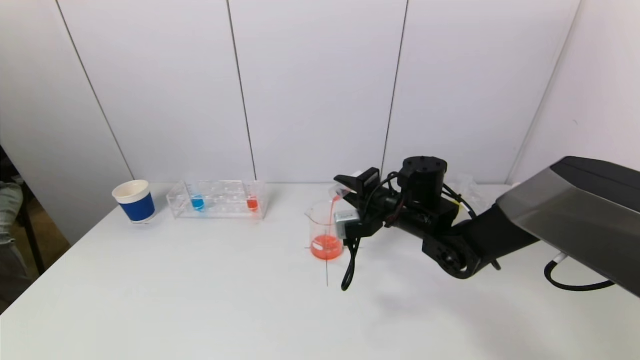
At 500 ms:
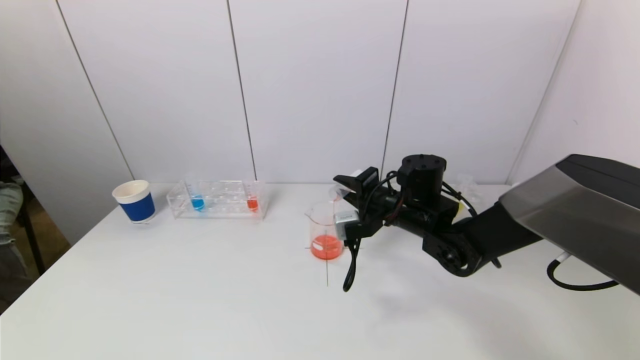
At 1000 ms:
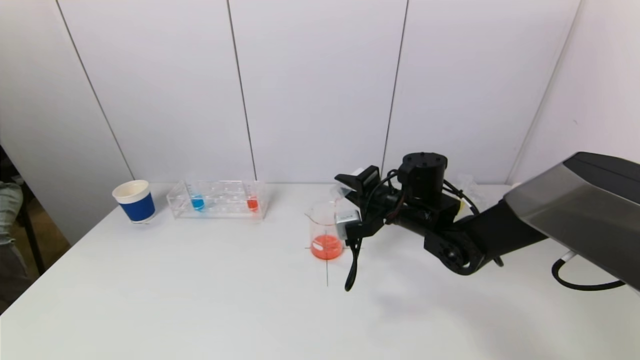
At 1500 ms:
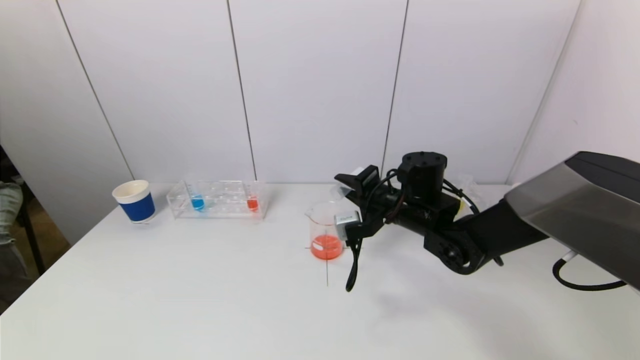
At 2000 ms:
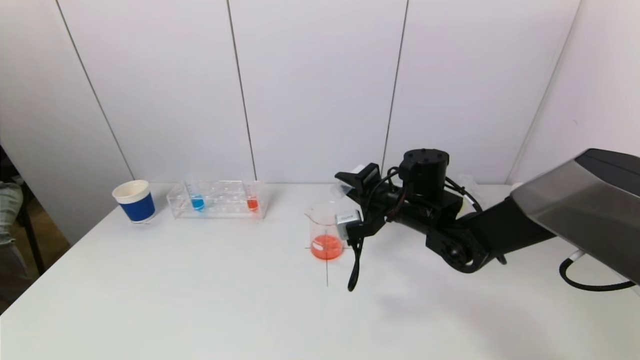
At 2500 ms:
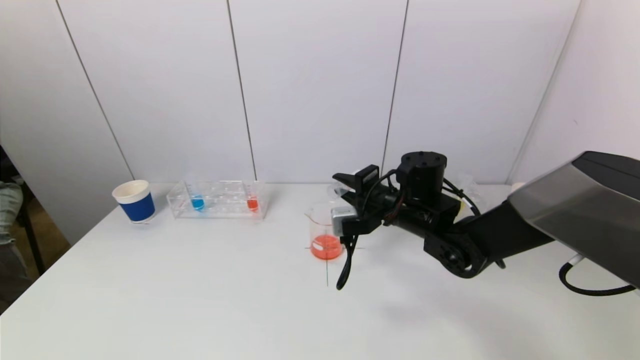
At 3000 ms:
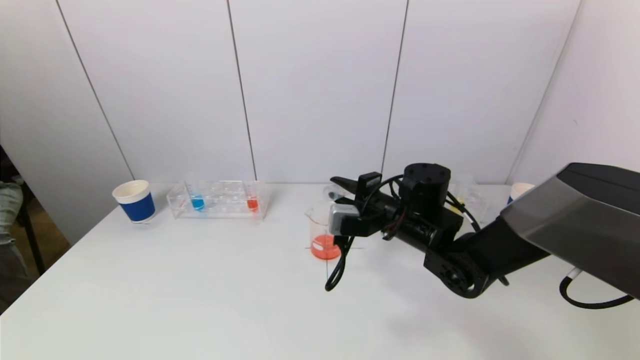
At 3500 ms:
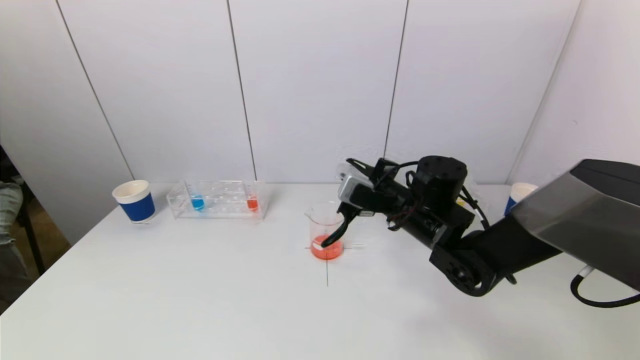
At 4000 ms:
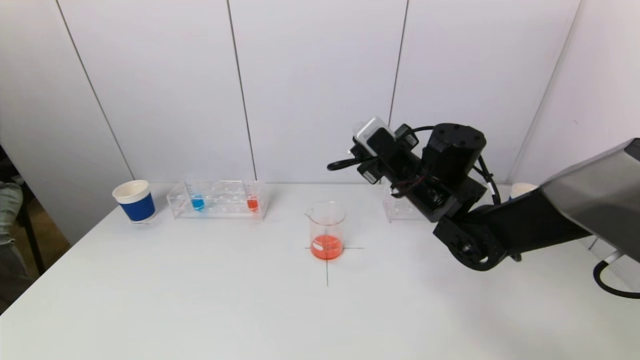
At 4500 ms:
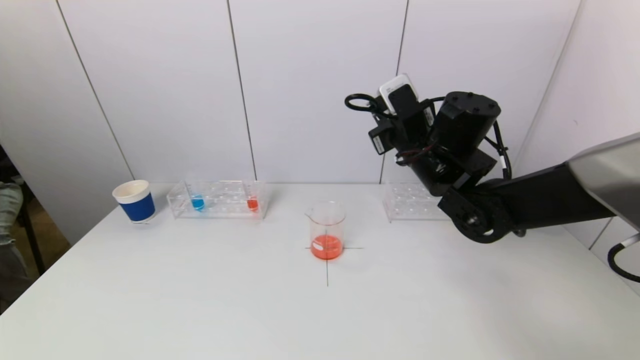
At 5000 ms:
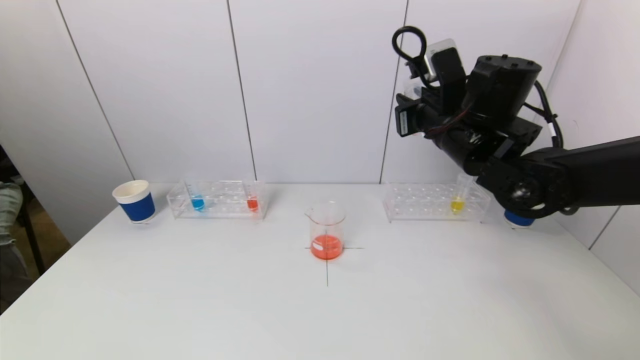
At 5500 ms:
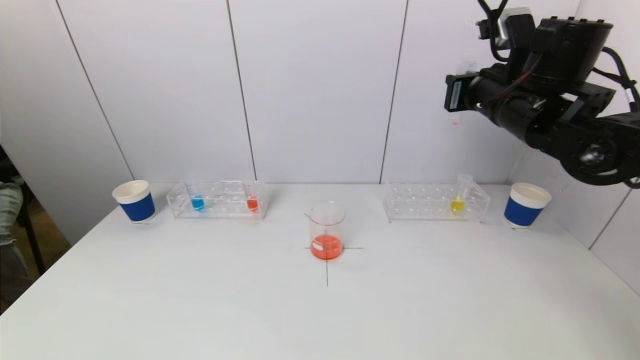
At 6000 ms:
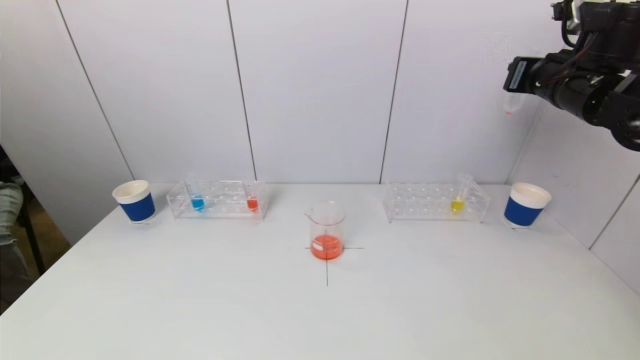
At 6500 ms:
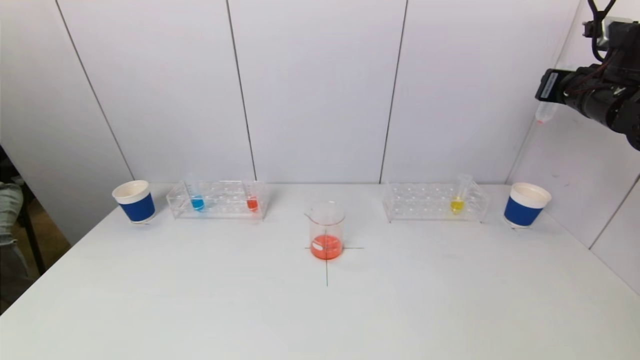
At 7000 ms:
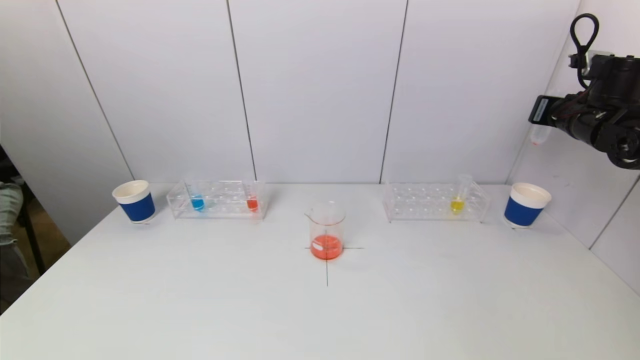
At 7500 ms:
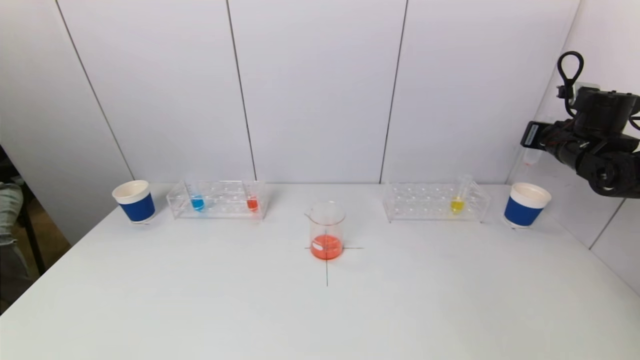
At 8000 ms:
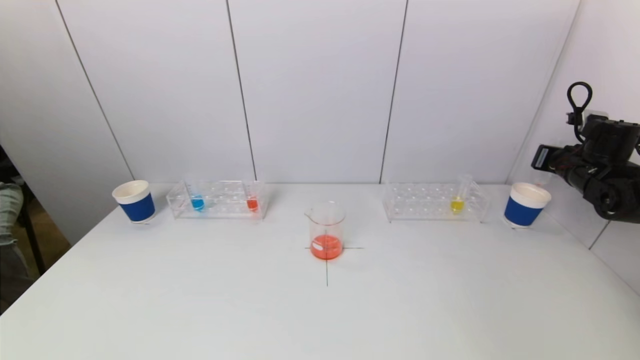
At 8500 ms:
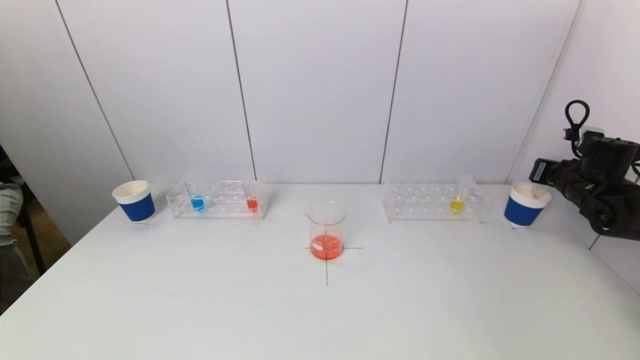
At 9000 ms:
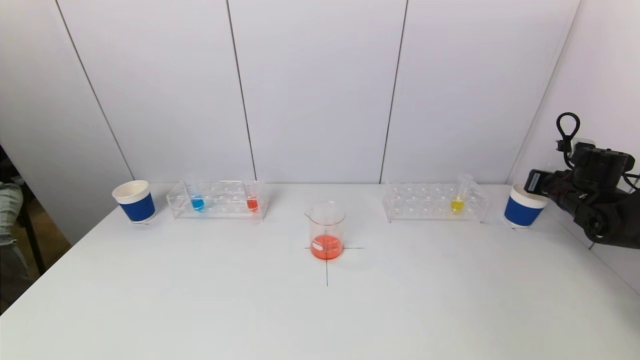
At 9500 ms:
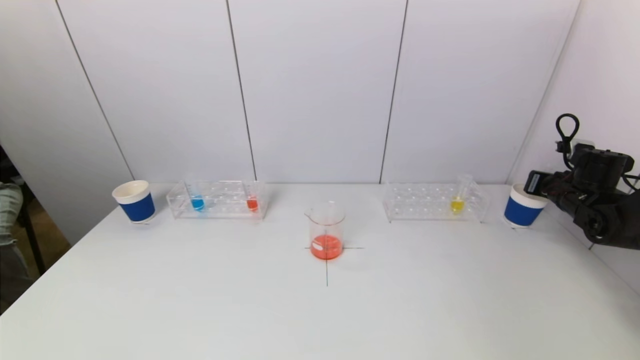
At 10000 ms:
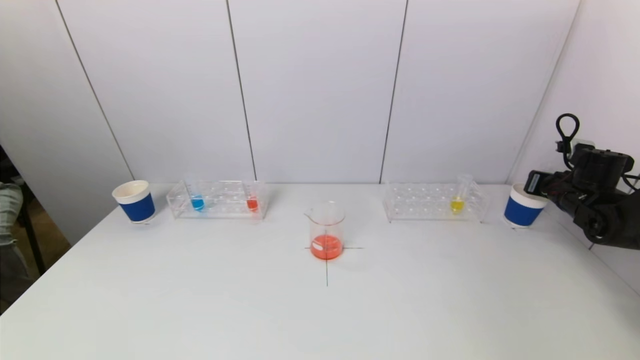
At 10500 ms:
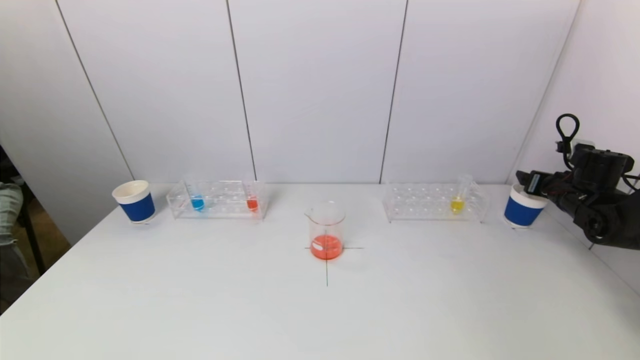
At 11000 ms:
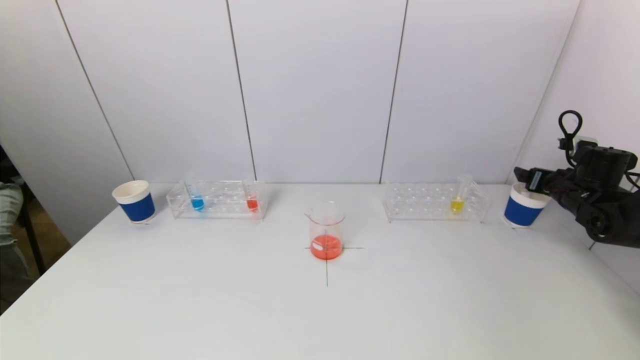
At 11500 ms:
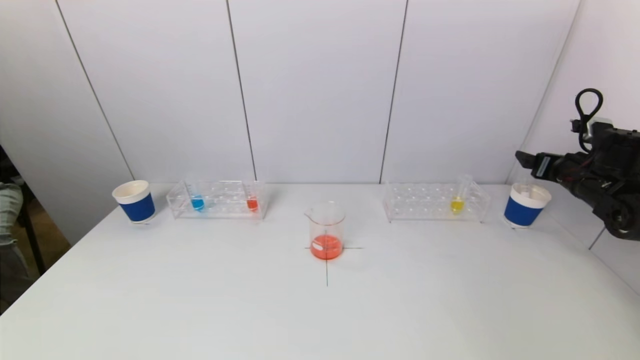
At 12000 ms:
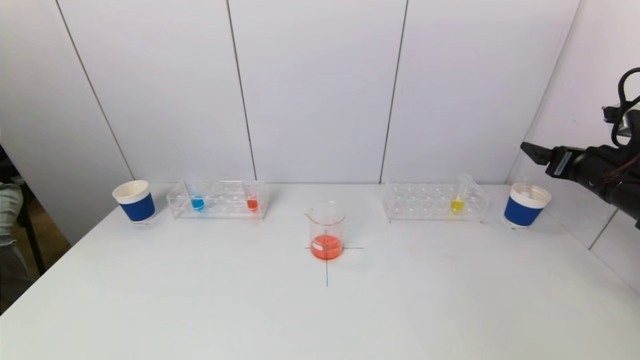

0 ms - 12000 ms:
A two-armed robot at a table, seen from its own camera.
Task of the whole recording: pick up a test tube with pigment on left test tube rack and a test tube with pigment on right test tube rack by grippers and pour them into the beaker.
Step, 2000 ms - 10500 ms: Place the test tube into the paper cup with the right gripper.
0 ms - 2000 ms: The grippers stay close to where they were, moving slightly.
2000 ms - 4000 ms: The right gripper travels upward by some 5 cm.
4000 ms - 6000 ms: The right gripper goes about 25 cm to the right and upward.
6000 ms - 8000 ms: The right gripper heads downward and to the right, covering some 20 cm.
8000 ms - 10000 ms: The right gripper shifts approximately 5 cm downward.
10000 ms - 12000 ms: The right gripper shifts about 15 cm backward, upward and to the left, and opens.

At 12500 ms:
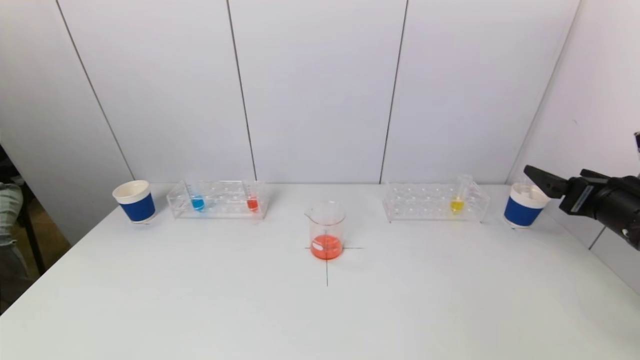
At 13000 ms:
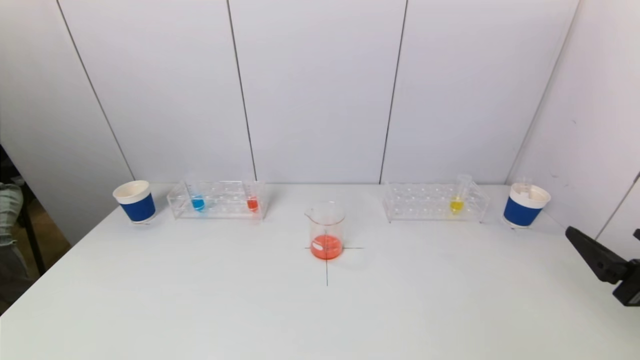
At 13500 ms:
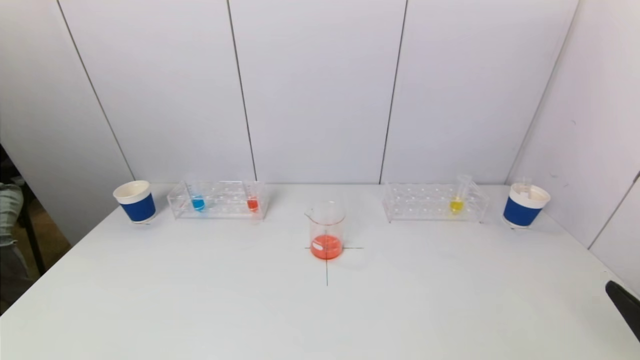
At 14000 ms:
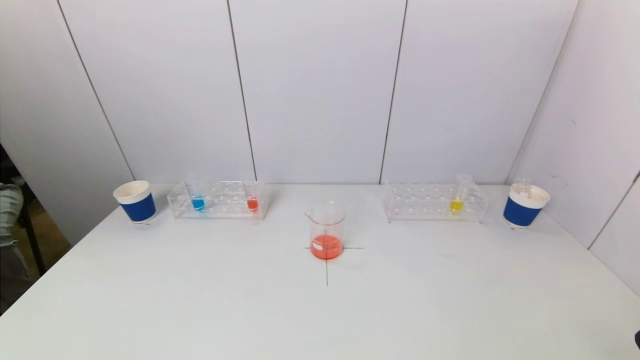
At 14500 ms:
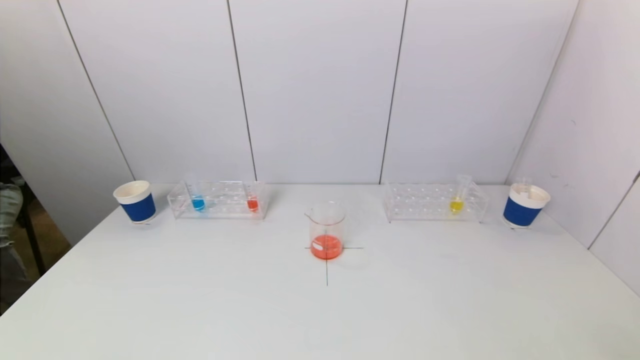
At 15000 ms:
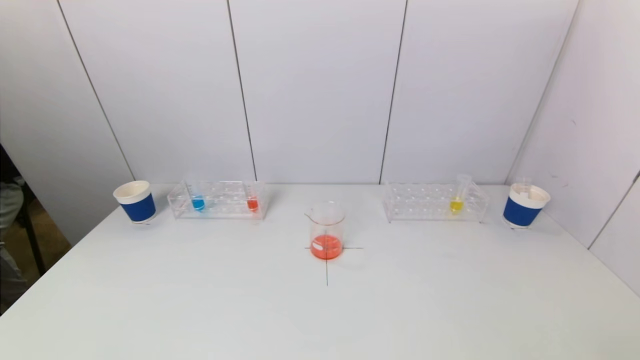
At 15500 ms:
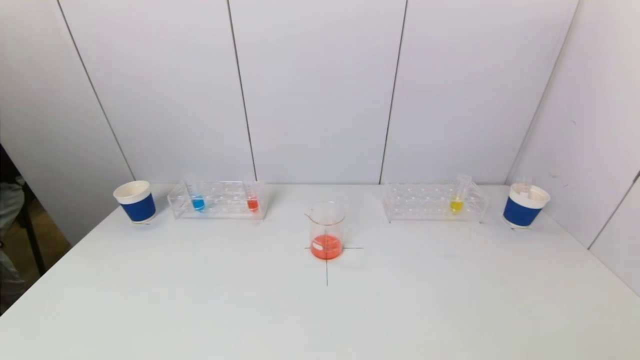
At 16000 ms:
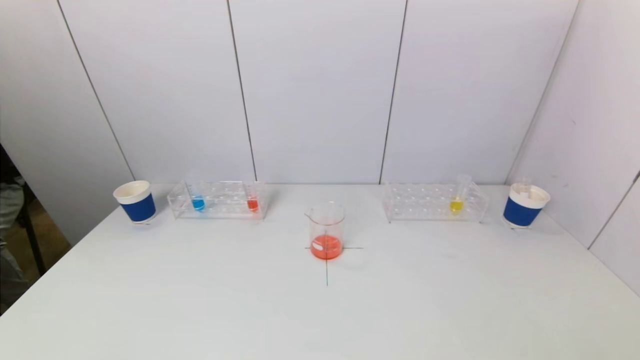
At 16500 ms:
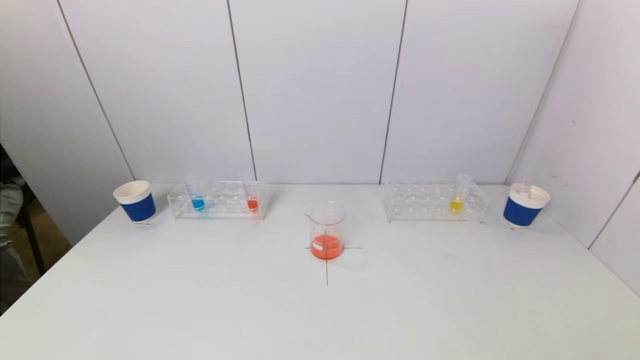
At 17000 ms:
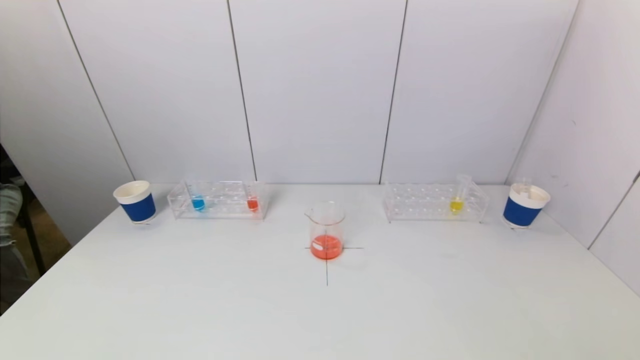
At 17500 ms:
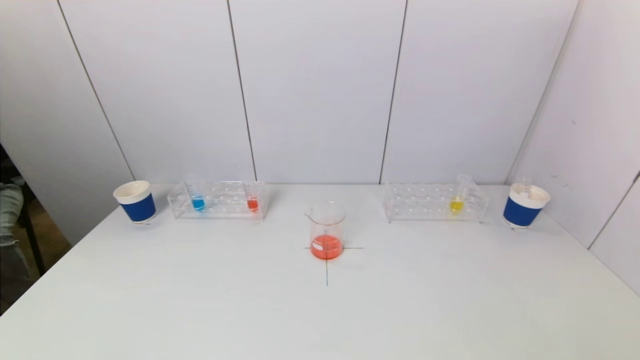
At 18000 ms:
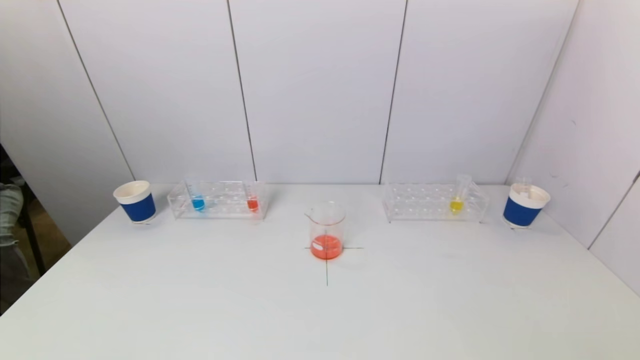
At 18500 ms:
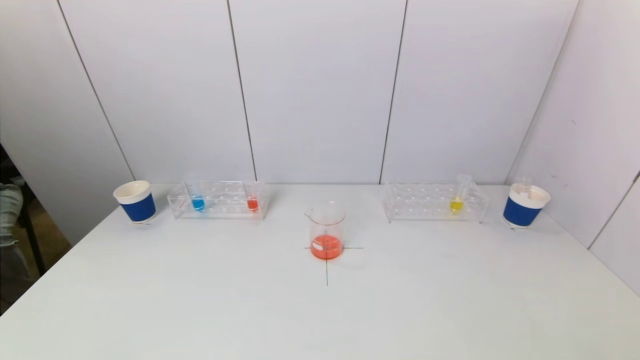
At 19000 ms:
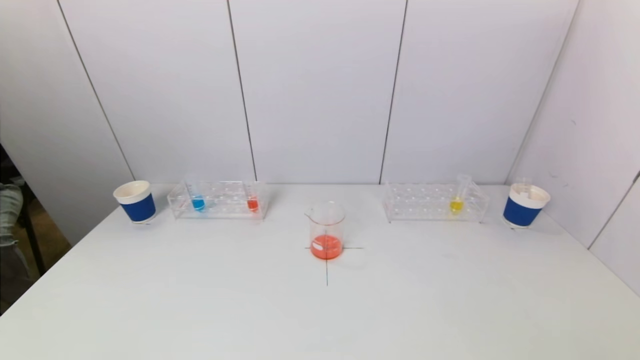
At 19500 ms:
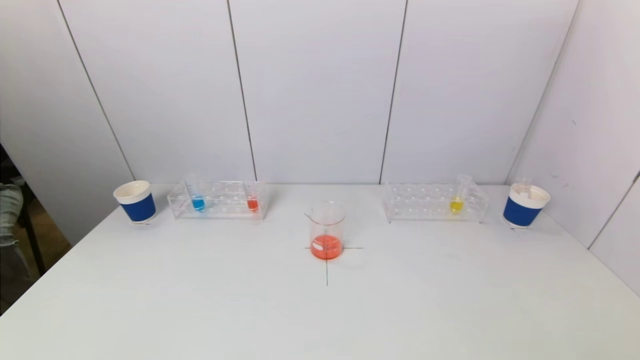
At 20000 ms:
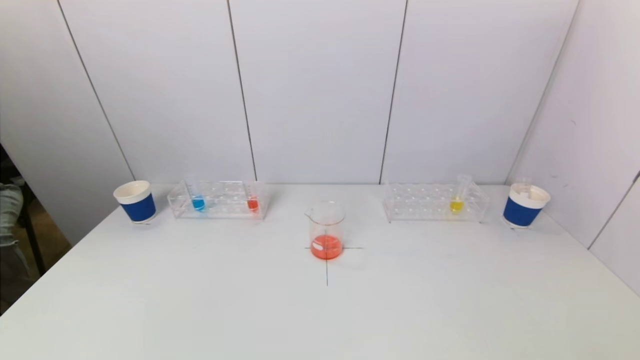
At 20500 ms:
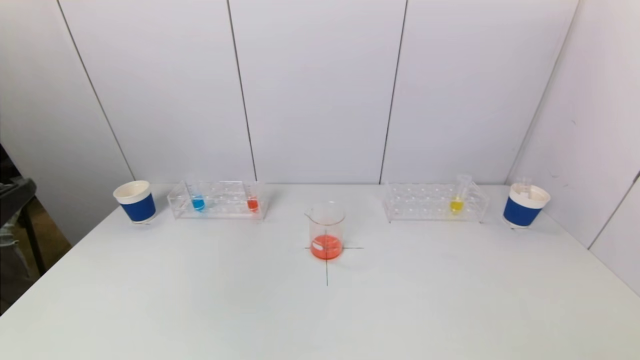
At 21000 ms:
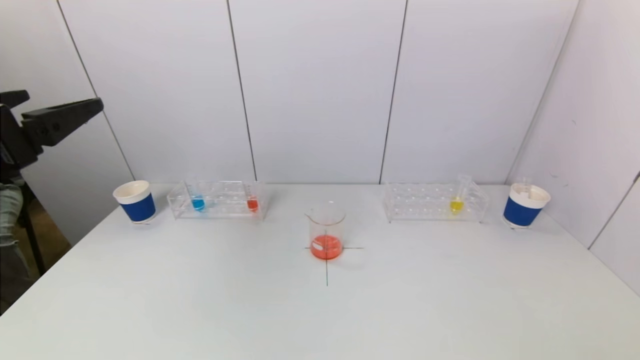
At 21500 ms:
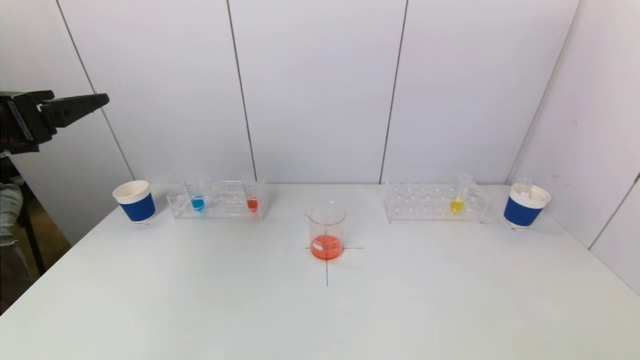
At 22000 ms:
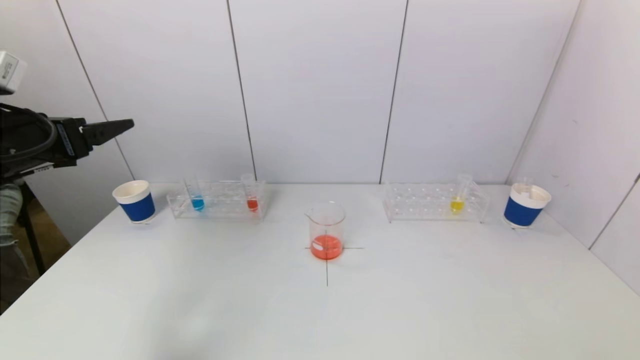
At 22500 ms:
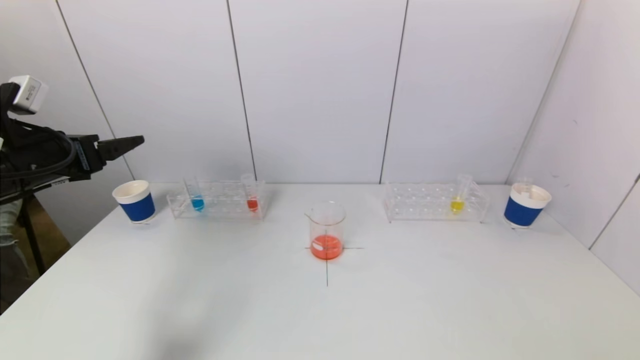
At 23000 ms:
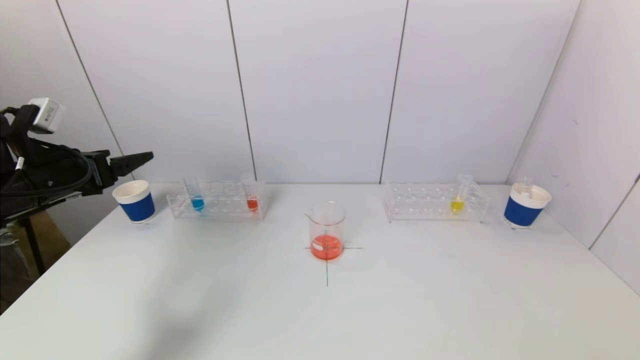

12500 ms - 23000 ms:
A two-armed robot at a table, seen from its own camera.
Task of the whole recording: pick up a test tube with pigment on left test tube rack and a test tube with pigment on right test tube rack by grippers and pour them into the beaker.
12500 ms - 14500 ms: The right gripper heads backward, covering approximately 25 cm.
16500 ms - 19000 ms: Both grippers stay about where they are.
19000 ms - 21000 ms: The left gripper is displaced upward and forward by some 30 cm.
21000 ms - 23000 ms: The left gripper is displaced forward, downward and to the left by about 20 cm.
